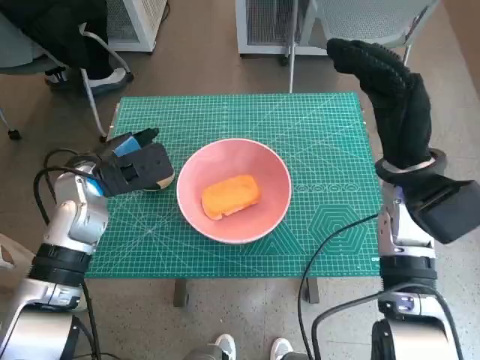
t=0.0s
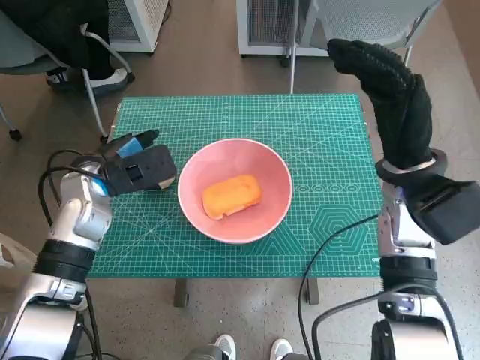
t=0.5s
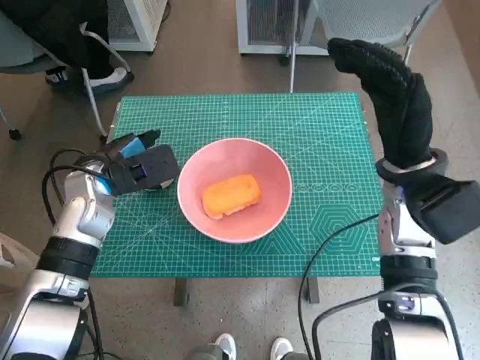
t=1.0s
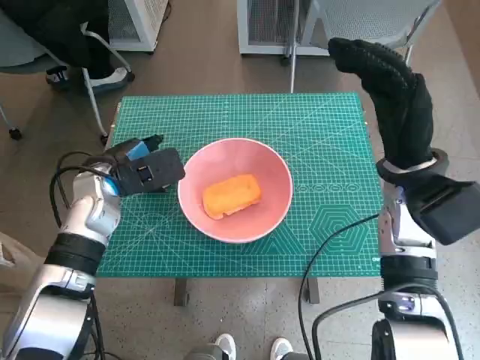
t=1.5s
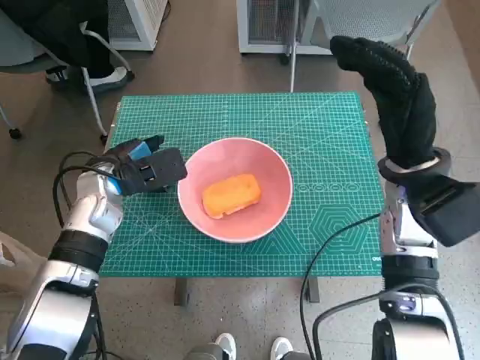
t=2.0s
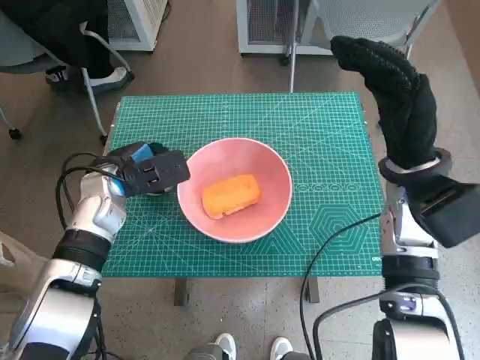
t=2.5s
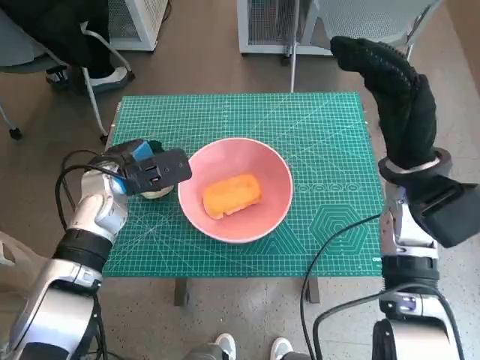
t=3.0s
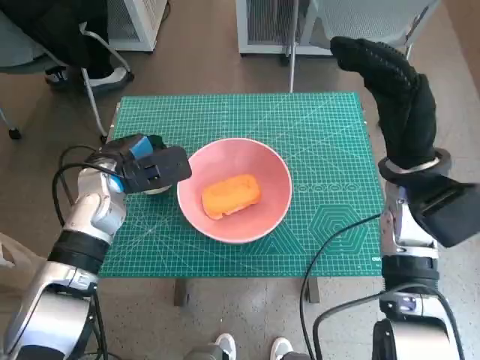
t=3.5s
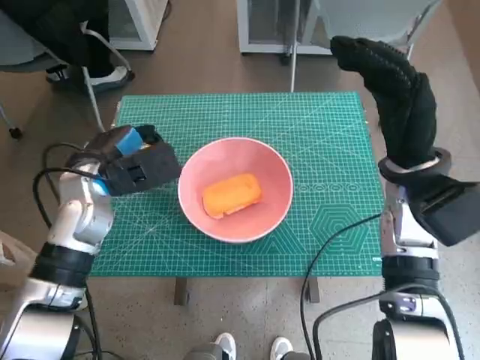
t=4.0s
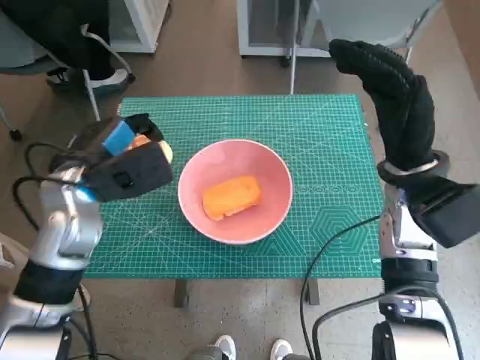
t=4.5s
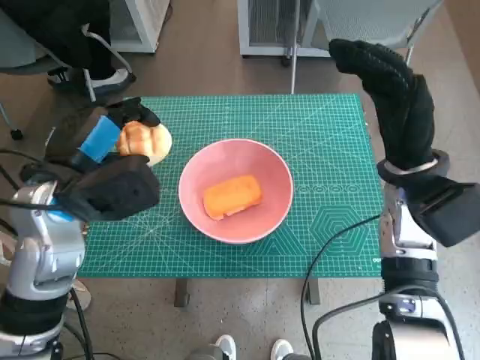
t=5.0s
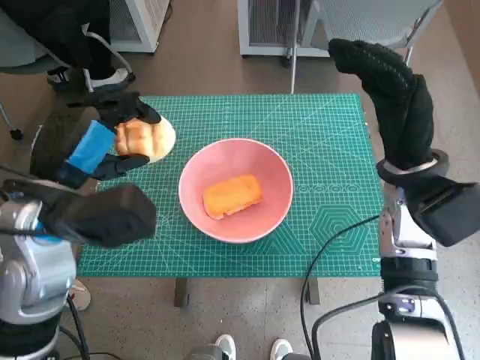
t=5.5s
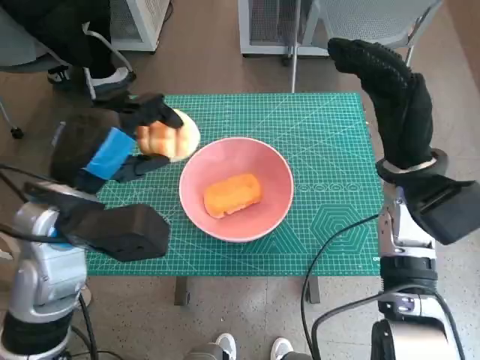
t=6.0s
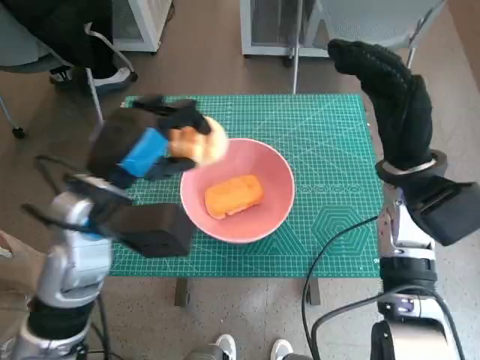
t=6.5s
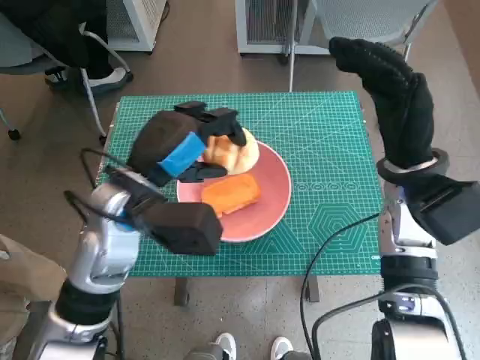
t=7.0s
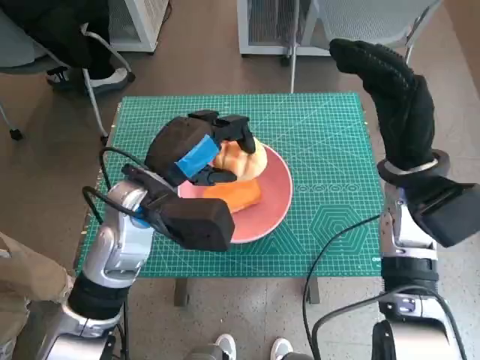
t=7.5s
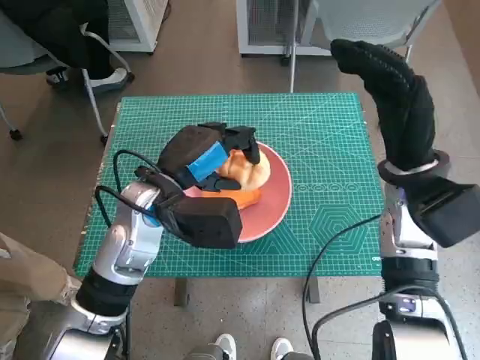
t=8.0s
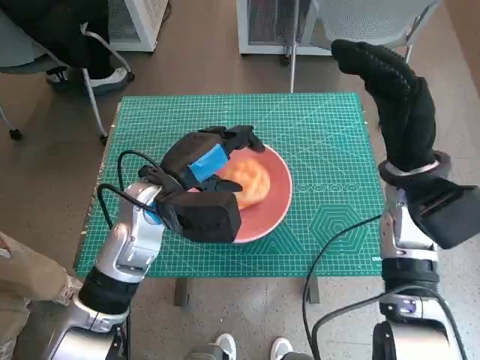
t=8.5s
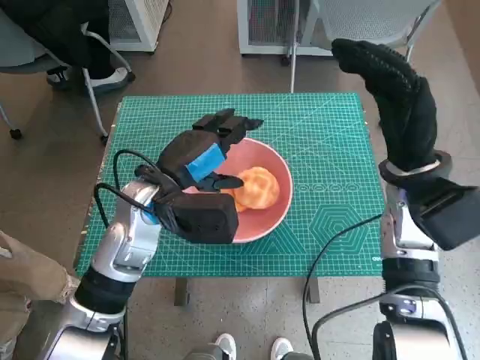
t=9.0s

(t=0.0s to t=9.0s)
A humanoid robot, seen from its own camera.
Step, t=0.0s - t=3.0s: Grasp the round bread with left hand.
Step, t=3.5s - t=9.0s: Place the round bread in pink bowl with left hand.
t=0.0s - t=2.0s: The hands stay close to where they were, moving slightly.
t=2.0s - t=4.5s: The left hand shifts roughly 5 cm upward.
t=4.5s - t=7.0s: The left hand goes about 5 cm to the right.

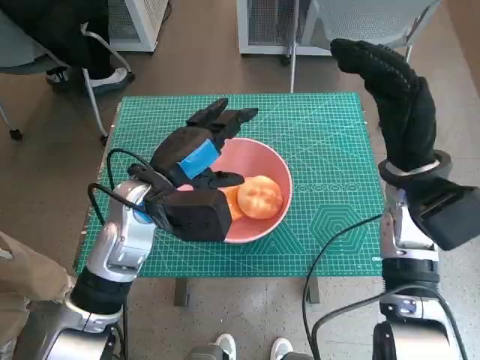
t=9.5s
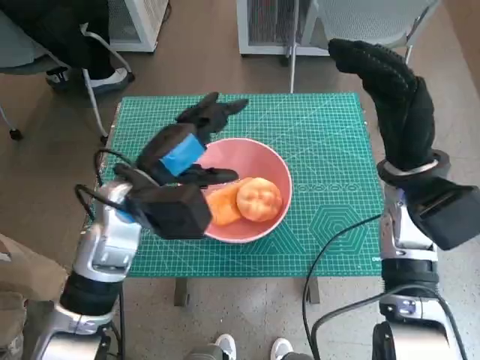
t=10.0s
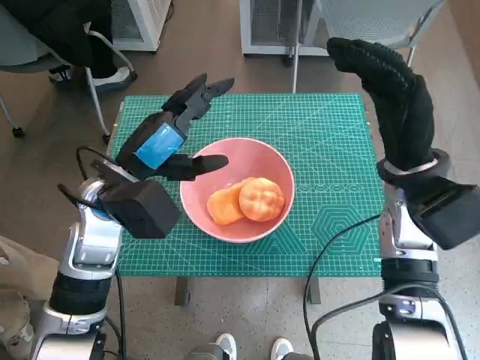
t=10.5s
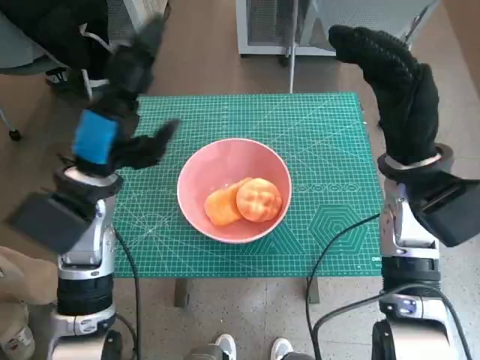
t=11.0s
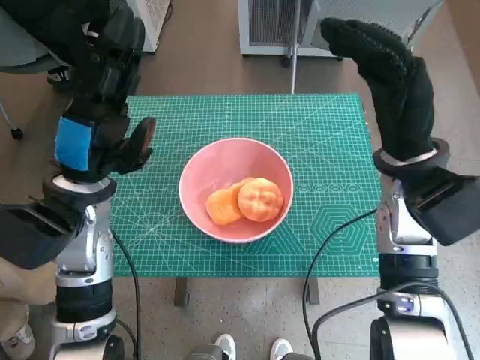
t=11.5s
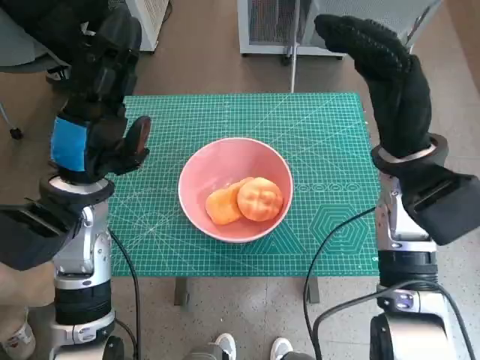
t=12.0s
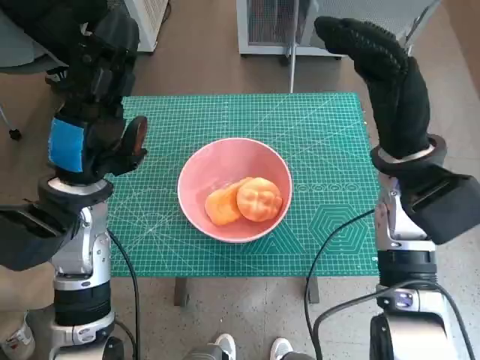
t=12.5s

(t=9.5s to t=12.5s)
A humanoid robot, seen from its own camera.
t=9.5s - t=11.0s: The left hand moves to the left, about 5 cm.

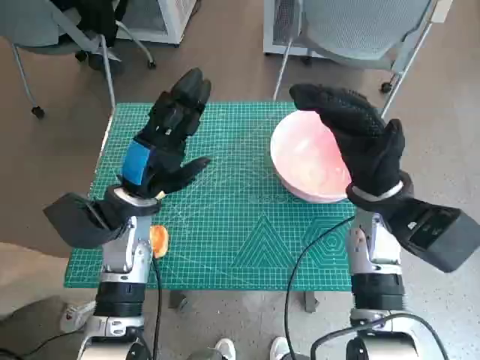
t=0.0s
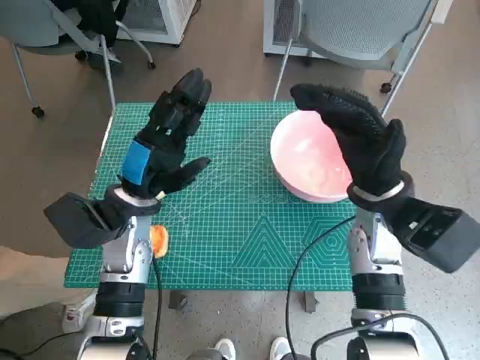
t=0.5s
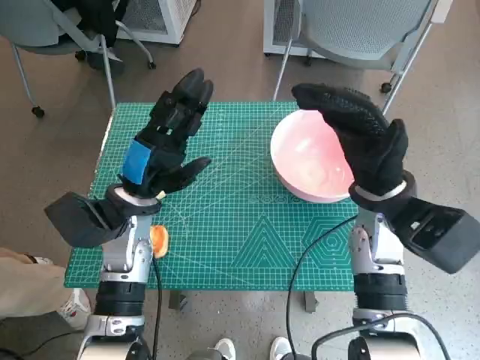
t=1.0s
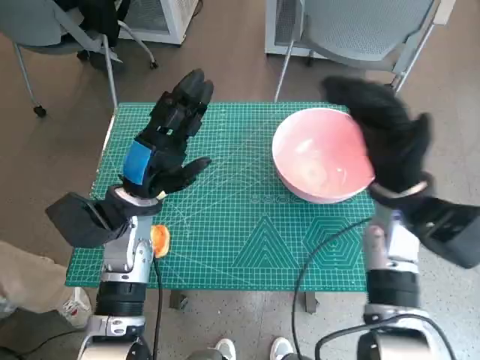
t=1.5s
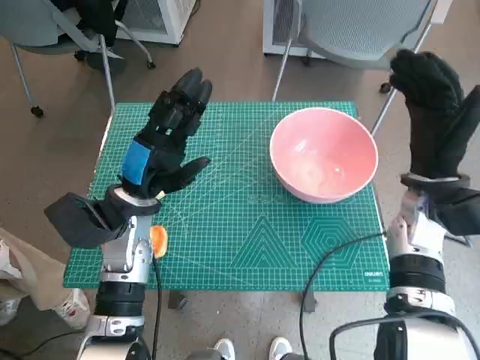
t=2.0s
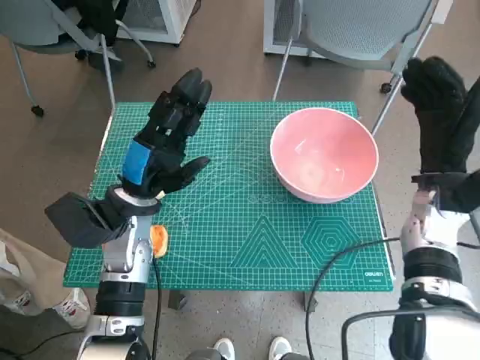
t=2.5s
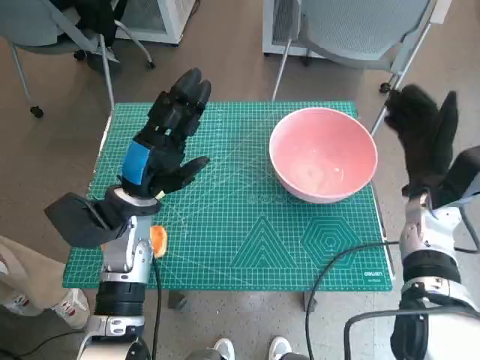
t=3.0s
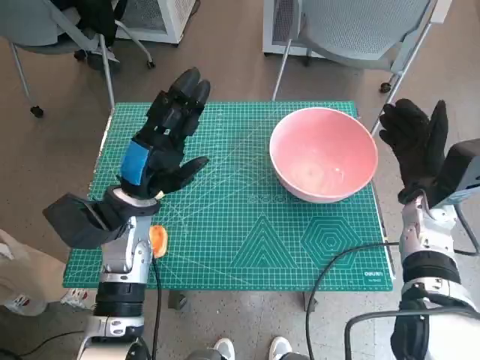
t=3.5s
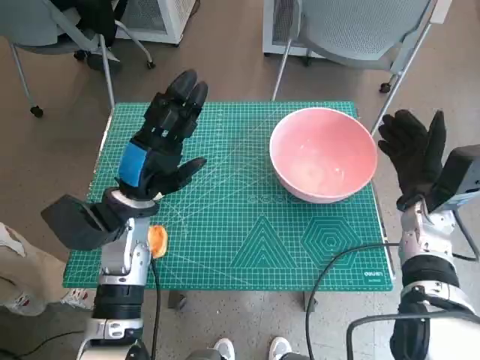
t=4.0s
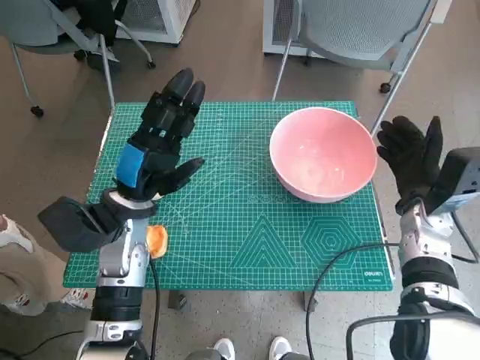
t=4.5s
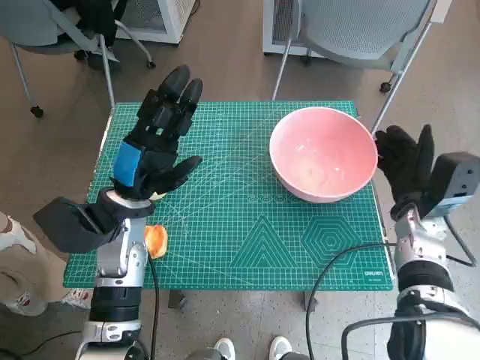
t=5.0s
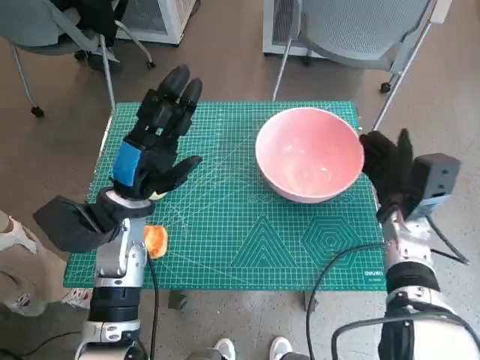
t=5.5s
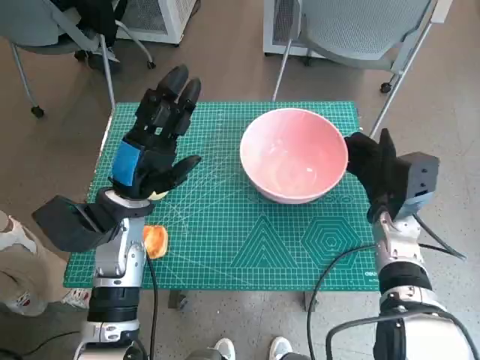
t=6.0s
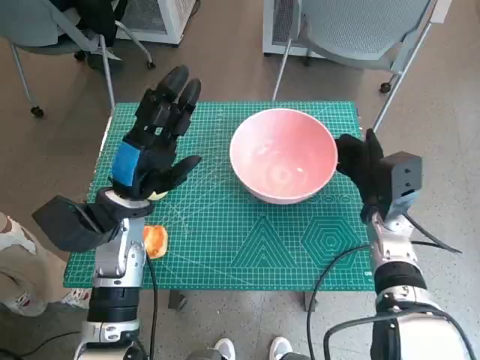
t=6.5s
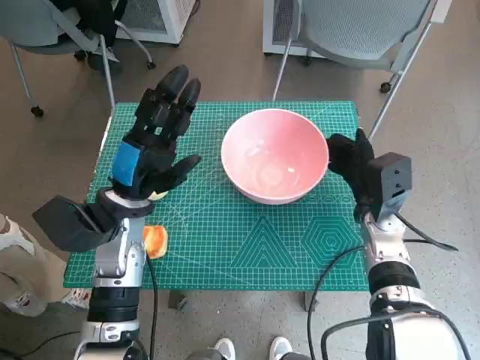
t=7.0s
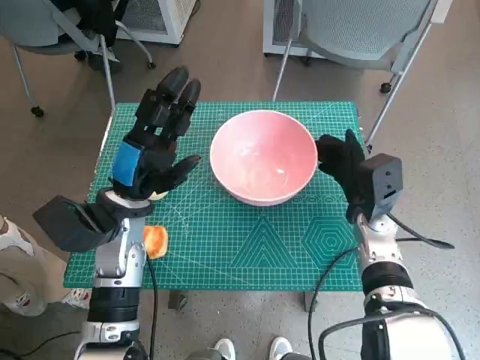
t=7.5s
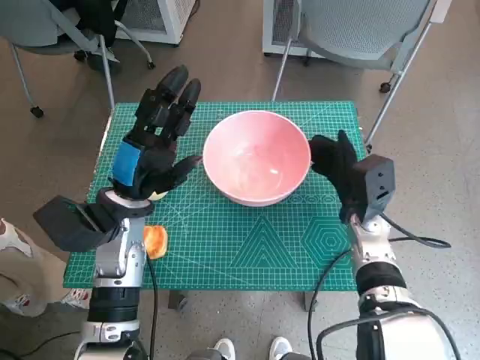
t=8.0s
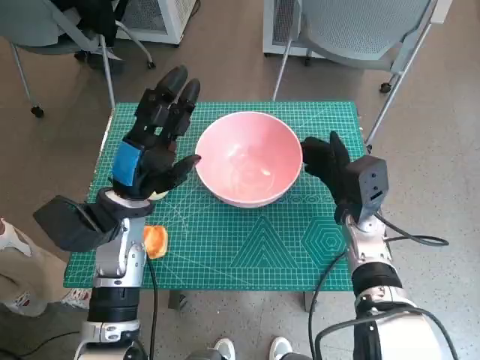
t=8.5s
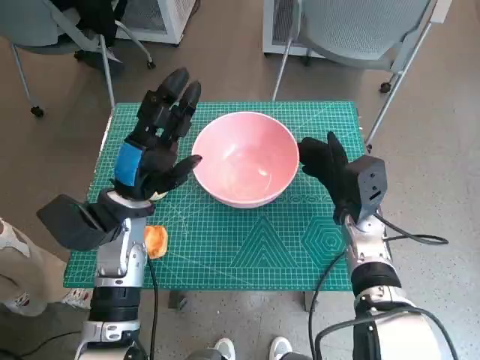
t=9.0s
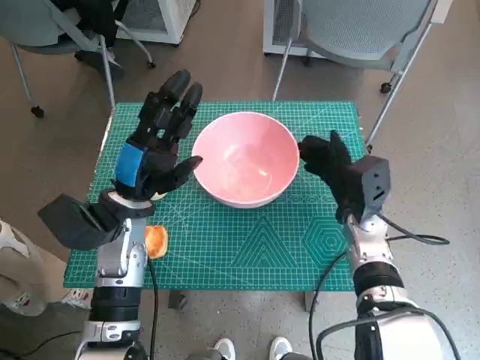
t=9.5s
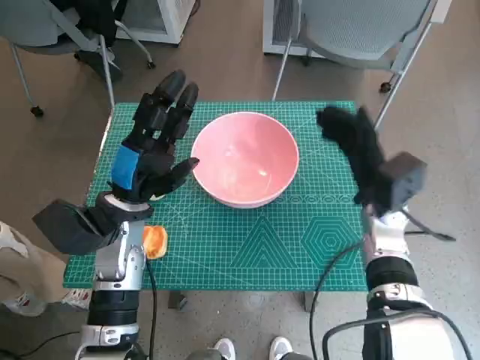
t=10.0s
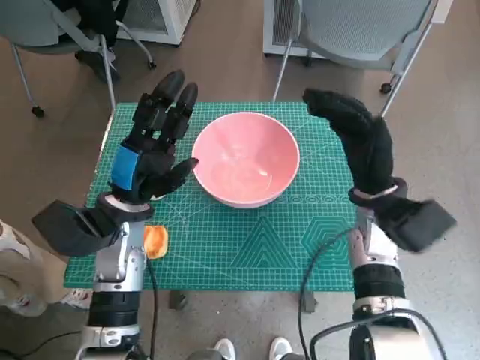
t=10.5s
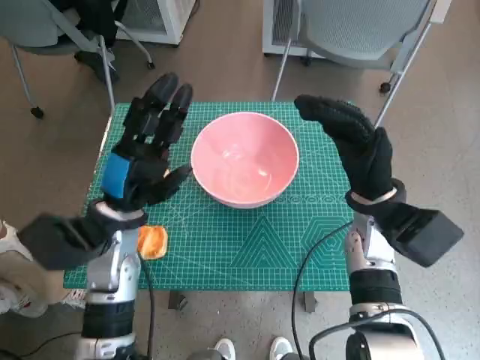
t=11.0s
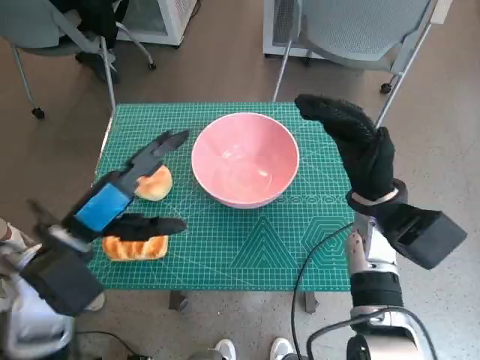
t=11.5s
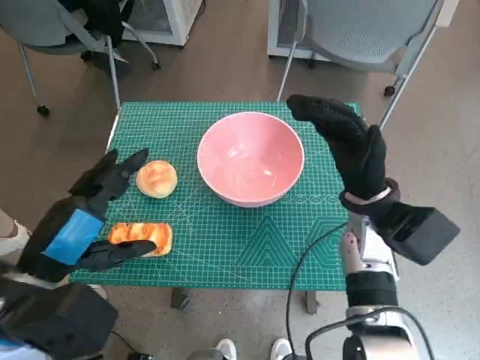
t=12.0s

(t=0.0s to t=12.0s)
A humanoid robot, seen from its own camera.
Step, t=0.0s - t=9.5s: Move the pink bowl to the center of table with right hand.
t=2.0s - t=4.0s: The right hand goes roughly 5 cm downward.
t=6.0s - t=8.0s: There are only small adjustments of the hands.
t=8.0s - t=10.0s: There are only small adjustments of the hands.
t=10.0s - t=12.0s: The left hand goes roughly 15 cm backward and upward. The right hand moves roughly 5 cm.

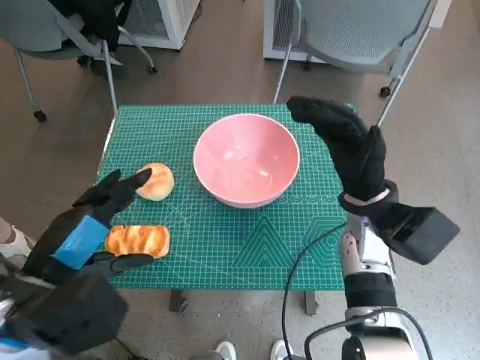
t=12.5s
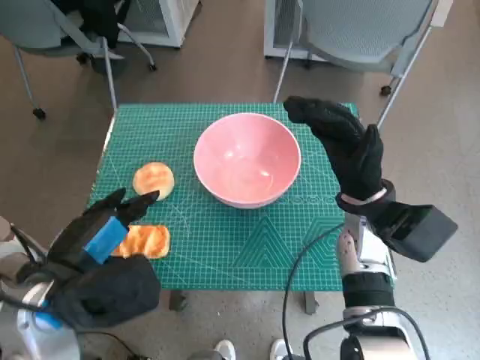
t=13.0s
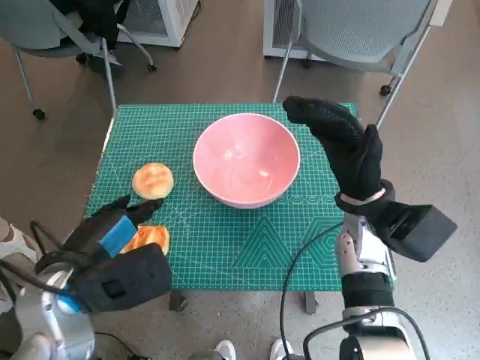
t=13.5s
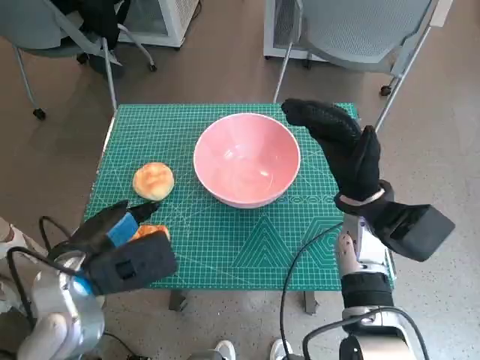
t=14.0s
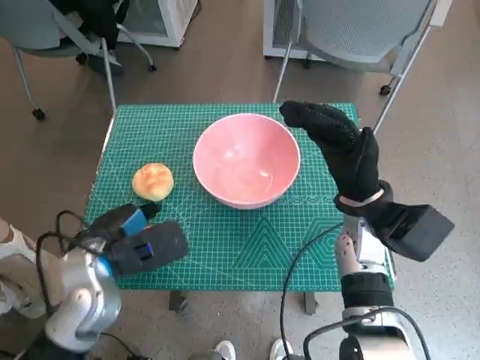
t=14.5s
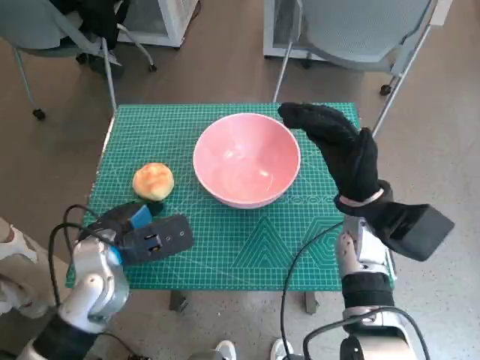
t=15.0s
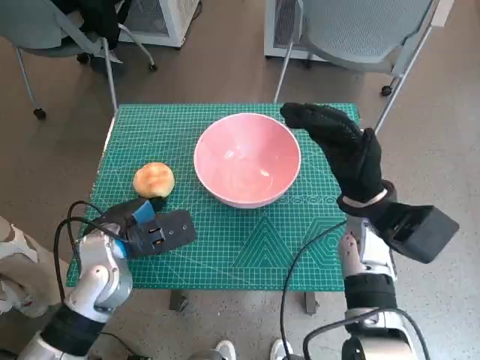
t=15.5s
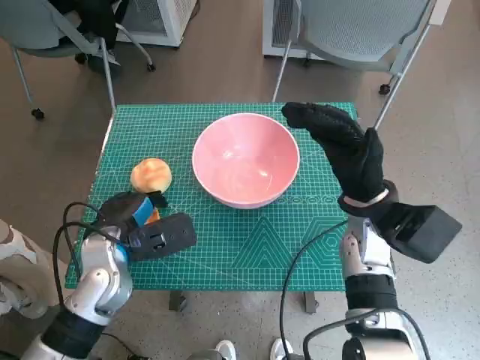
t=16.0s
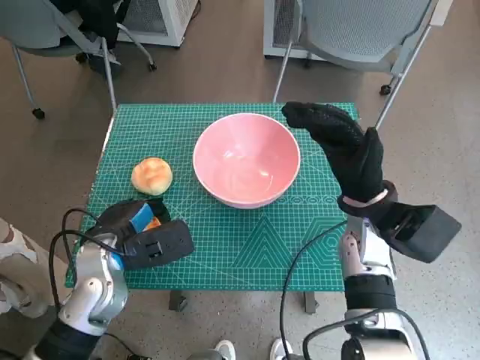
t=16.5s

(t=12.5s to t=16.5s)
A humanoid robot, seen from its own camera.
Step, t=12.5s - t=15.5s: Grasp the long bread with left hand.
t=12.5s - t=14.5s: The left hand heads forward and downward, covering some 10 cm.
t=14.5s - t=16.5s: There are only small adjustments of the hands.
